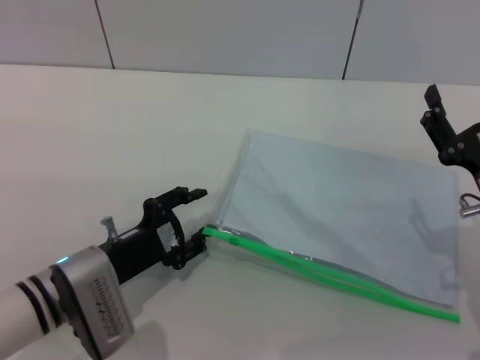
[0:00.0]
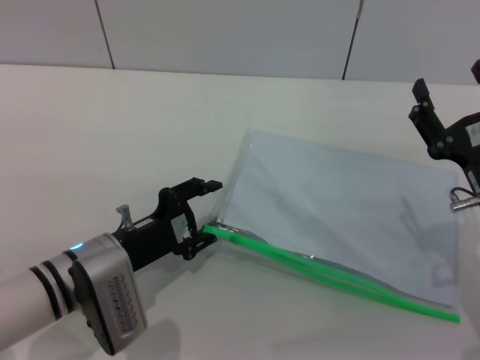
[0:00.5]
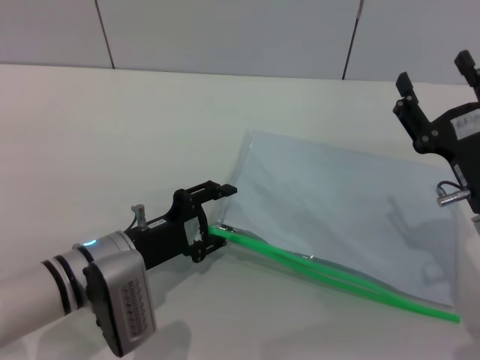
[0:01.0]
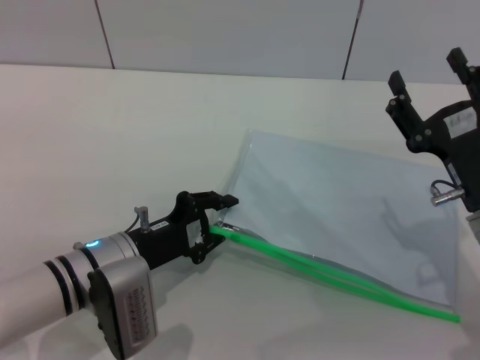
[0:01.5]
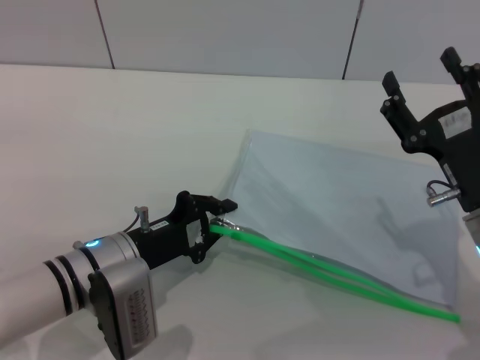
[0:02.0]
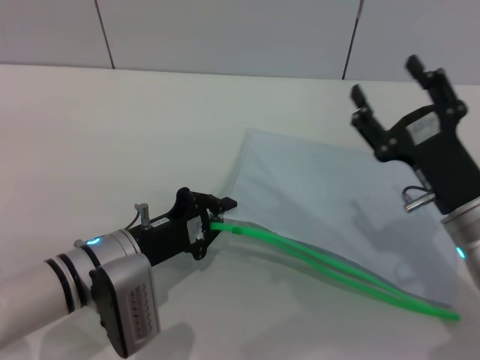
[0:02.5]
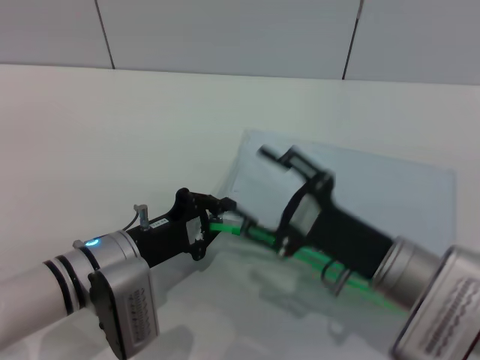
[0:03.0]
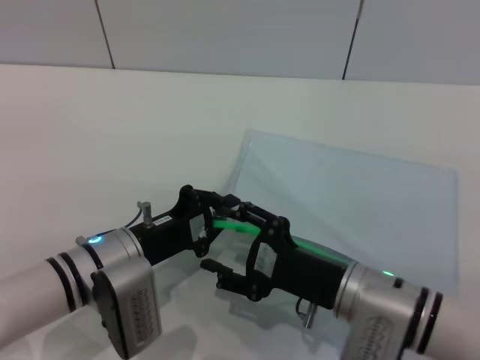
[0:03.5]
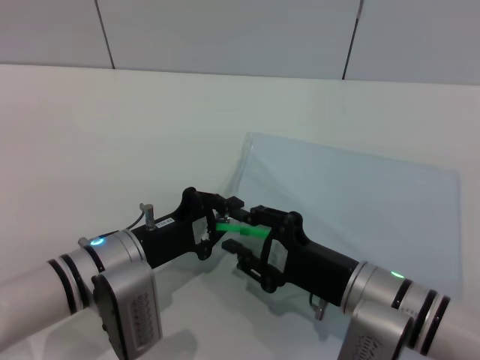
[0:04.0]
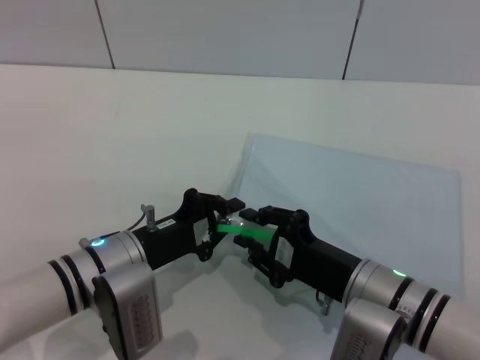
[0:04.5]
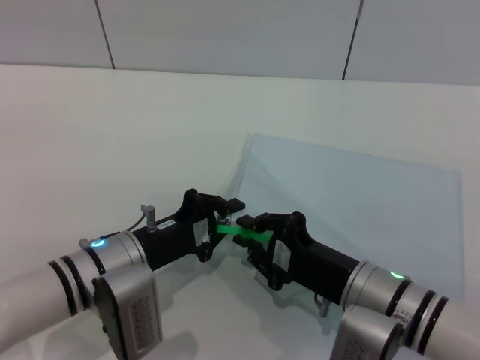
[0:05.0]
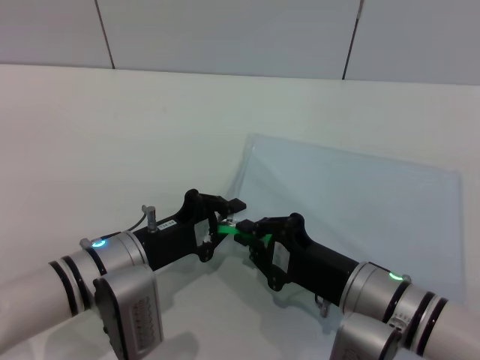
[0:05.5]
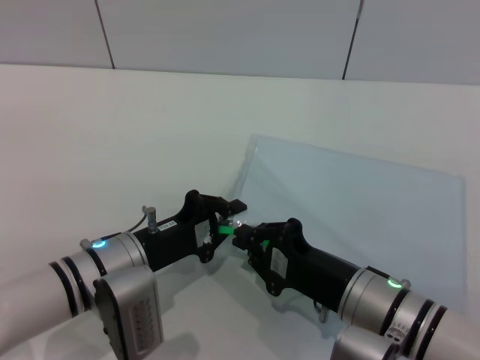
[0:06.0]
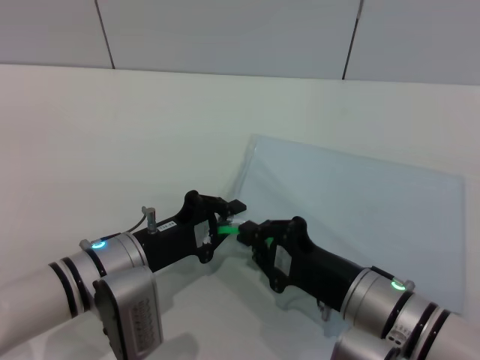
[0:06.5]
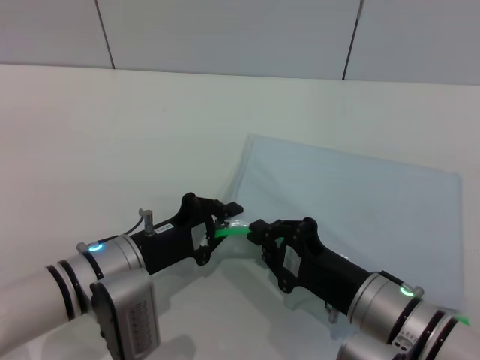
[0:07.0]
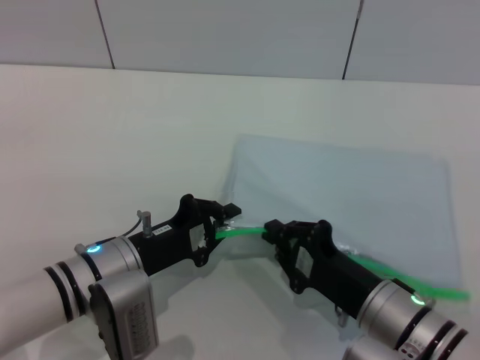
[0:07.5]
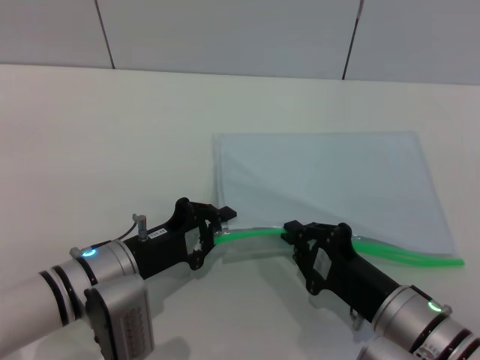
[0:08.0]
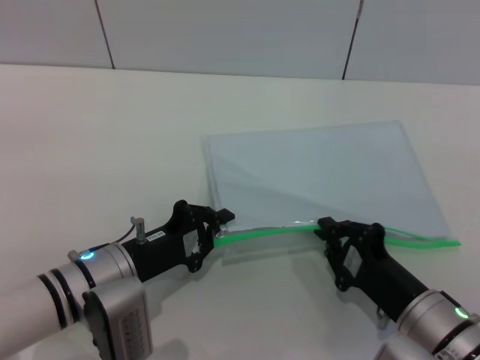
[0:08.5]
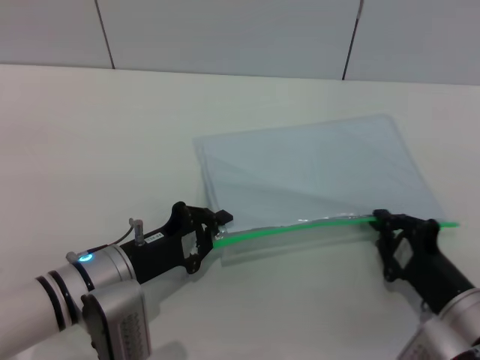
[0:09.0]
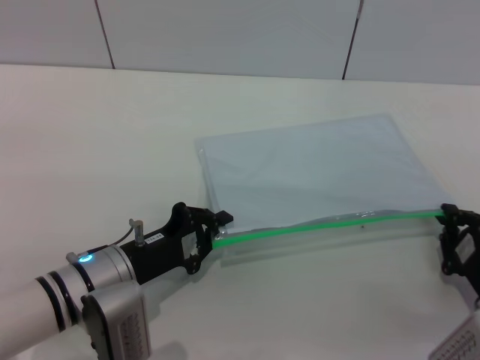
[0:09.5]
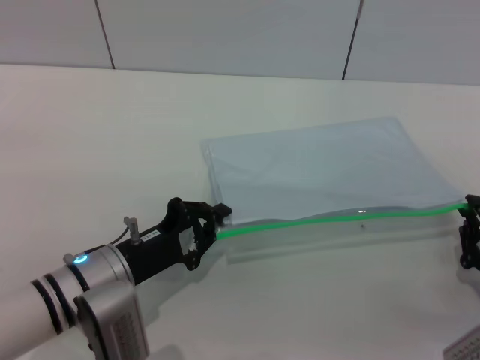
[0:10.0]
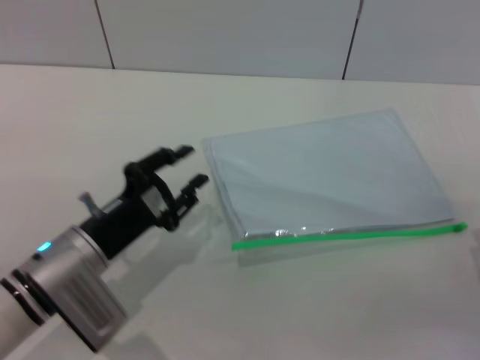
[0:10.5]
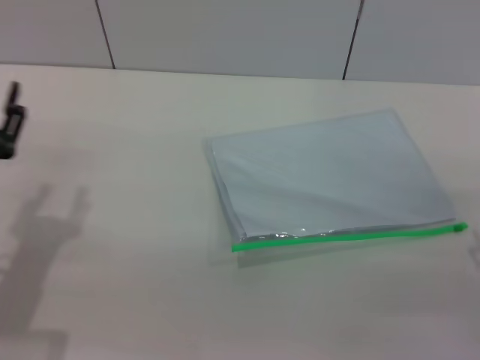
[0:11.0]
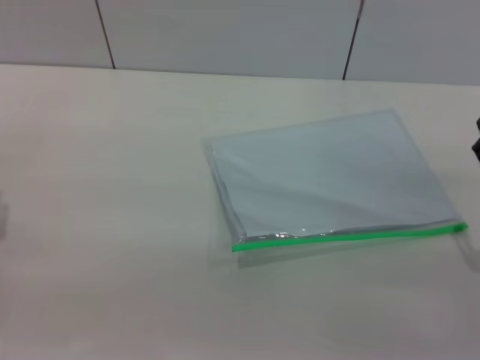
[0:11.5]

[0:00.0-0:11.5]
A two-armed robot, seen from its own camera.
Step, 0:00.0 to 0:02.5: Pick up the transparent plastic bag with the left gripper.
Step, 0:03.0 to 0:10.0: Pulling up the zipper on the transparent plastic bag with the right gripper to close it.
0:00.0 to 0:02.0: The left gripper closes.
0:02.0 to 0:04.0: The right gripper shifts roughly 10 cm to the left.
0:04.0 to 0:06.0: The right gripper closes its fingers.
0:06.0 to 0:07.5: The grippers make only small movements.
0:07.5 to 0:09.5: The right gripper travels to the right by approximately 10 cm.
0:09.5 to 0:11.5: The right gripper is displaced upward by about 5 cm, and opens its fingers, while the left gripper heads to the left, covering approximately 15 cm, and opens its fingers.
